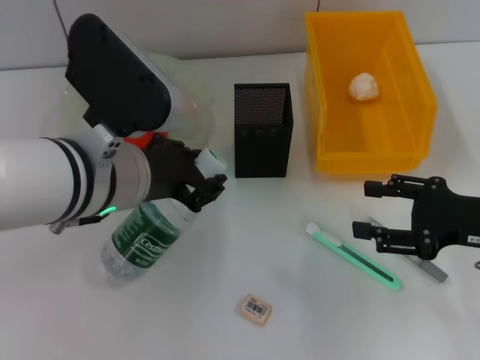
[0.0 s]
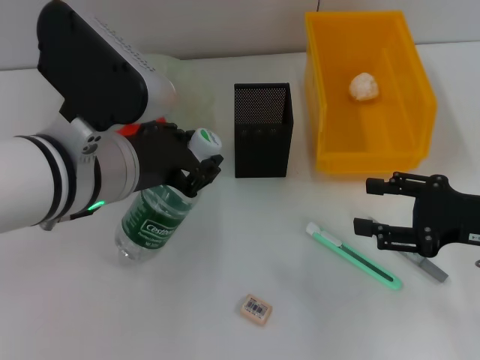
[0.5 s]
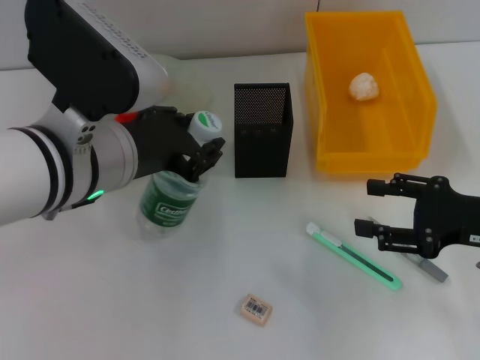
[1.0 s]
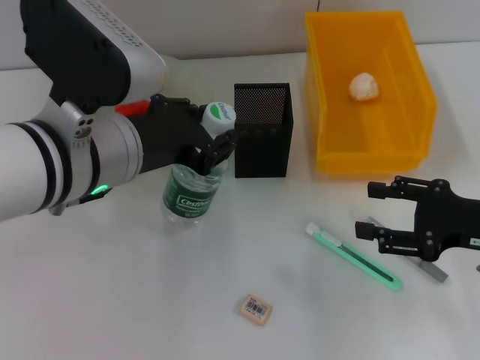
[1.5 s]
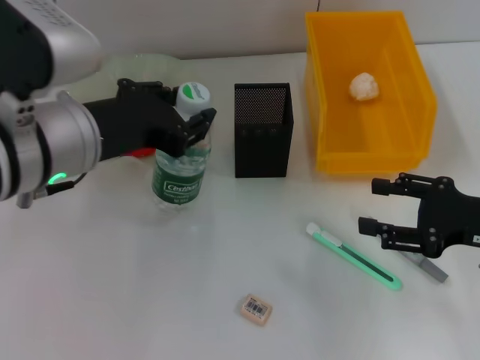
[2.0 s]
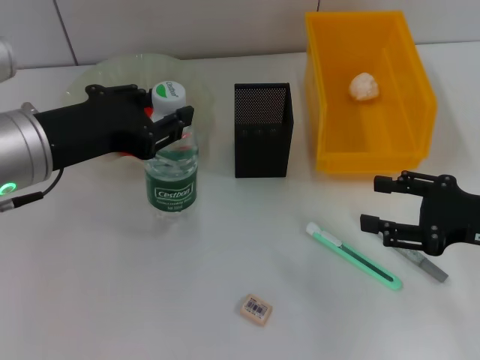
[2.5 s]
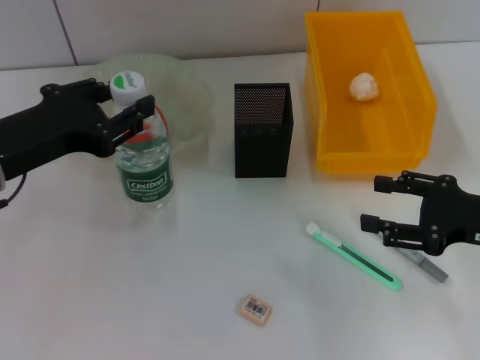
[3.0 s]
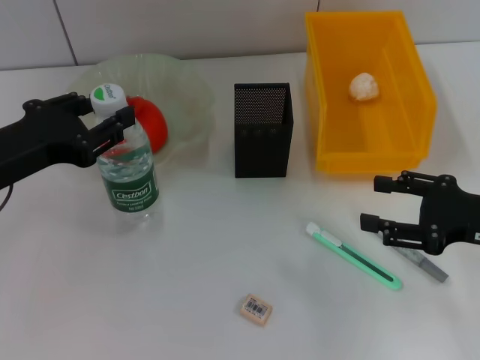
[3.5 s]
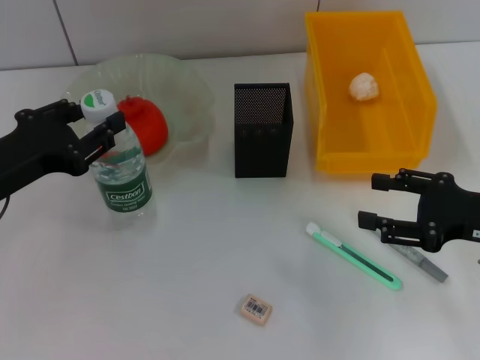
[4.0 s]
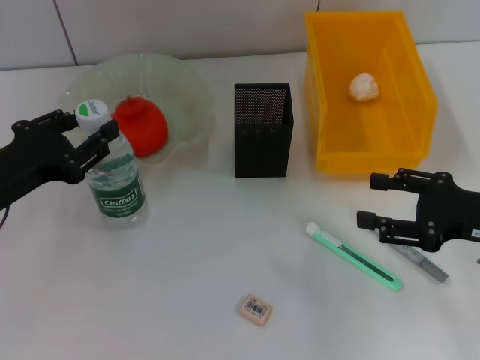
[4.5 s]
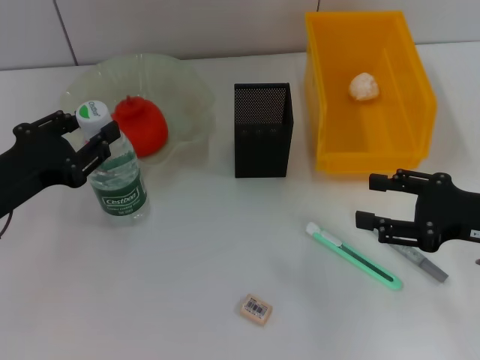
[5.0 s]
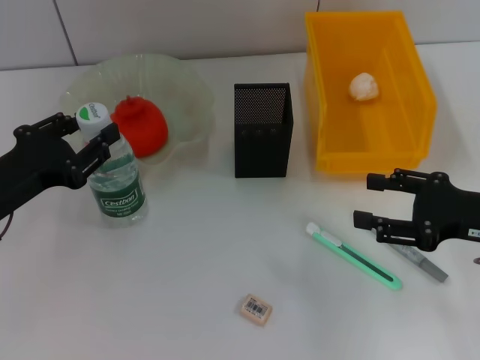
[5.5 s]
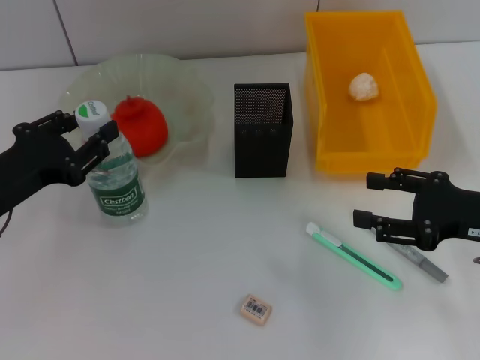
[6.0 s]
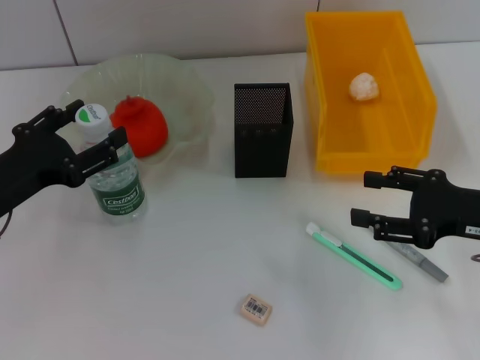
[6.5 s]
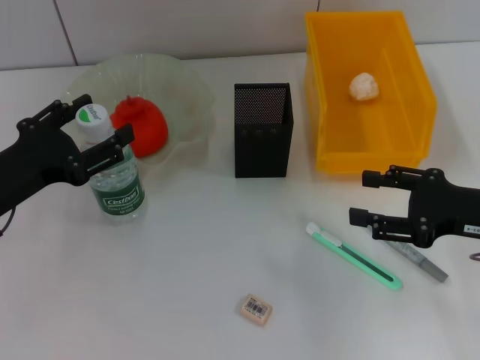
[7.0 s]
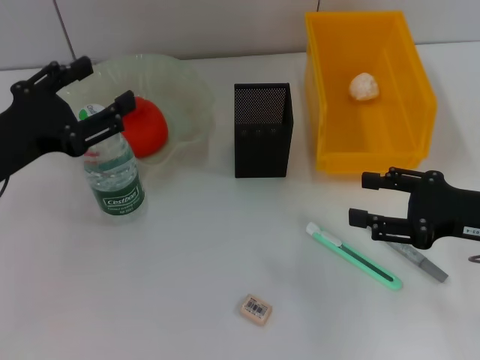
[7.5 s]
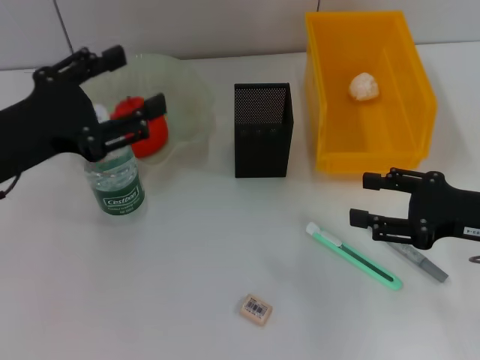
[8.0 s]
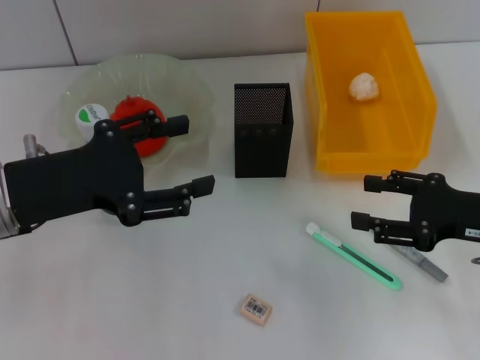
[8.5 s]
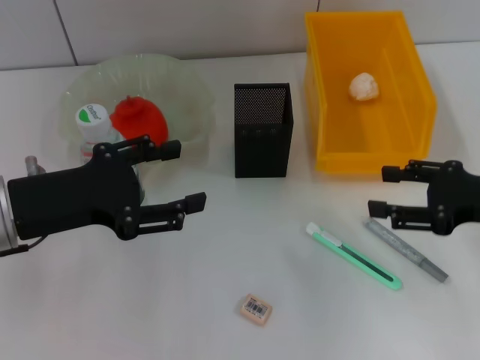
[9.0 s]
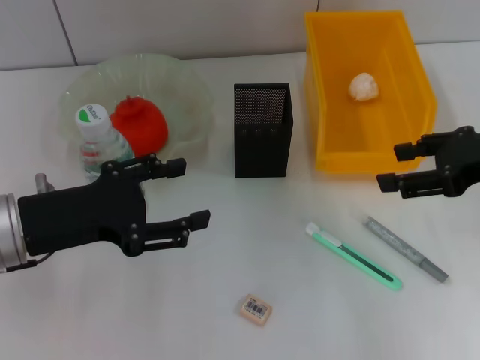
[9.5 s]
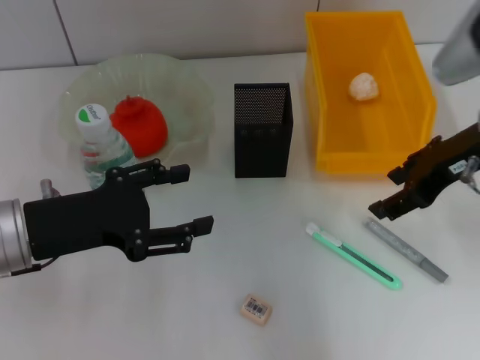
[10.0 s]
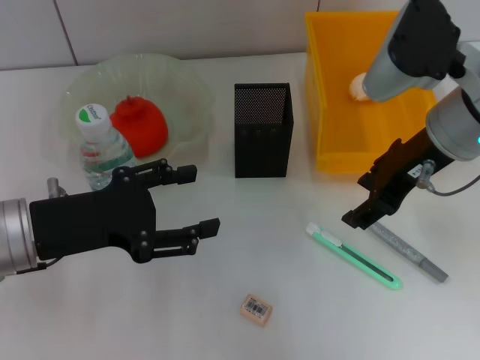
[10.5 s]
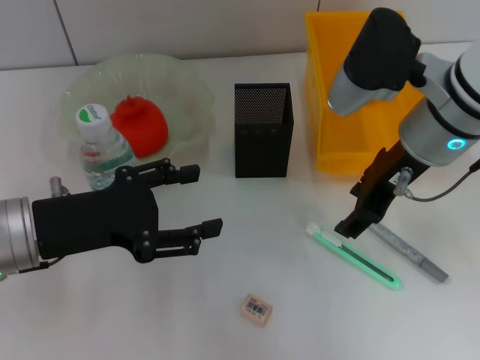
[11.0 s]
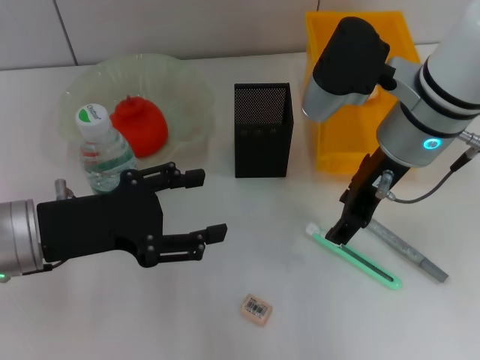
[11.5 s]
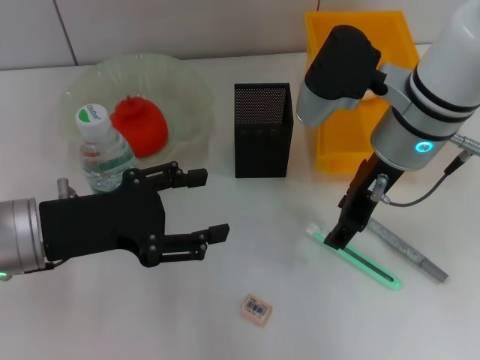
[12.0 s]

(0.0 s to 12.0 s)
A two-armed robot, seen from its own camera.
Step, 0.0 s - 7.0 s: Place the water bottle on the table with the left hand.
2.0 s - 4.0 s: The left gripper is displaced to the left and downward by roughly 10 cm.
4.0 s - 6.0 s: There are only small adjustments of the grippers.
6.0 s - 8.0 s: The left gripper goes roughly 5 cm upward, and opens up.
8.0 s - 10.0 s: The right gripper moves upward, forward and to the left, roughly 15 cm.
10.0 s - 12.0 s: The right gripper heads to the left, covering some 10 cm.

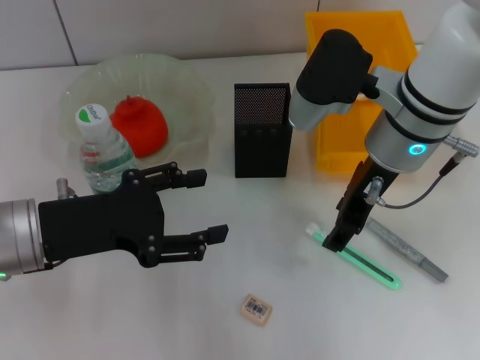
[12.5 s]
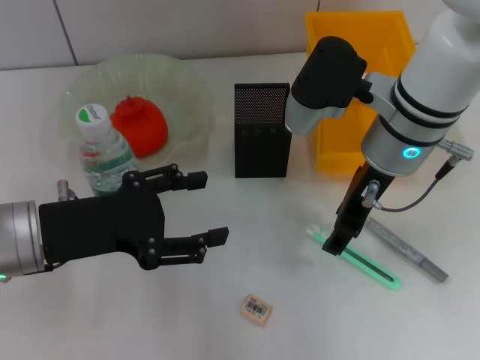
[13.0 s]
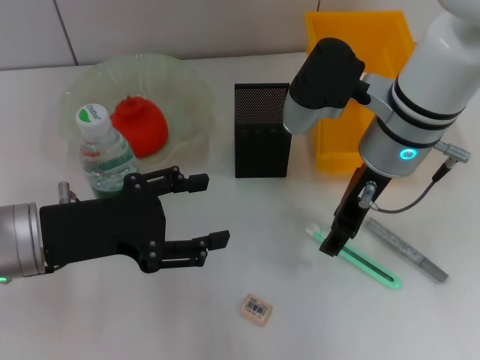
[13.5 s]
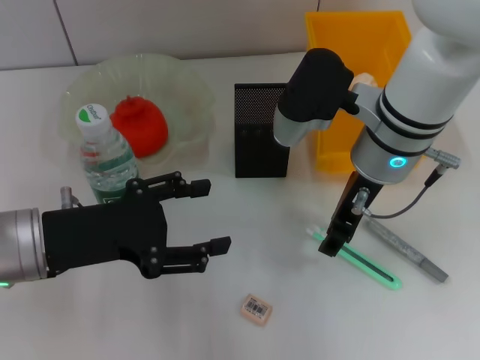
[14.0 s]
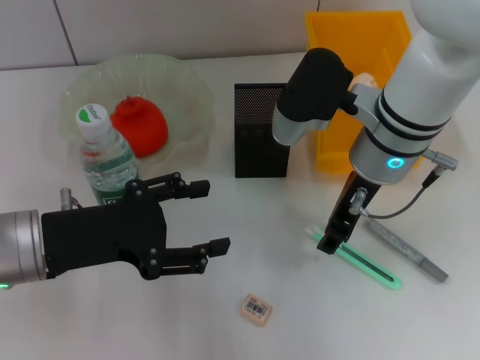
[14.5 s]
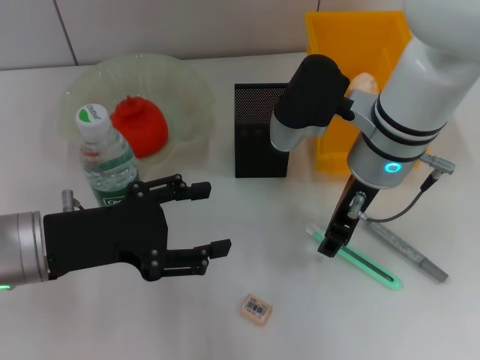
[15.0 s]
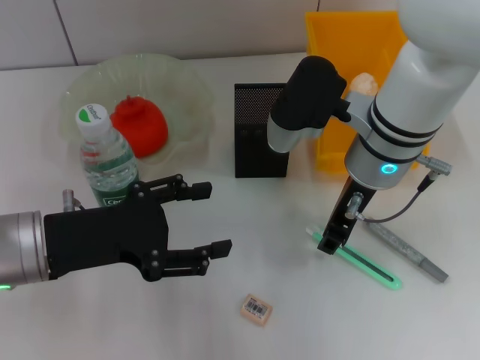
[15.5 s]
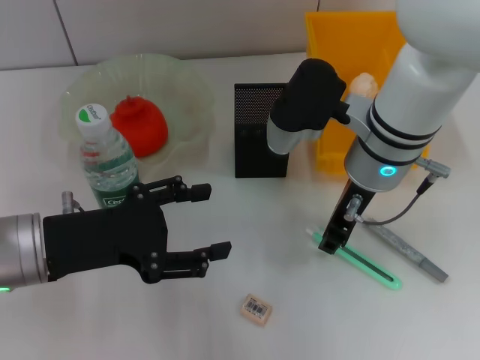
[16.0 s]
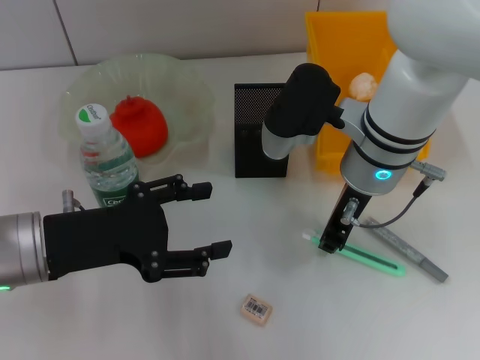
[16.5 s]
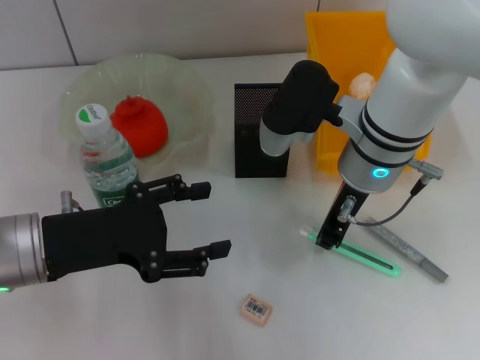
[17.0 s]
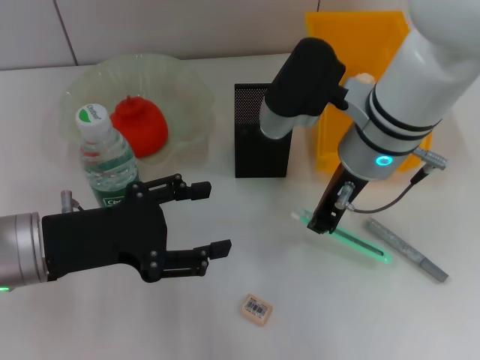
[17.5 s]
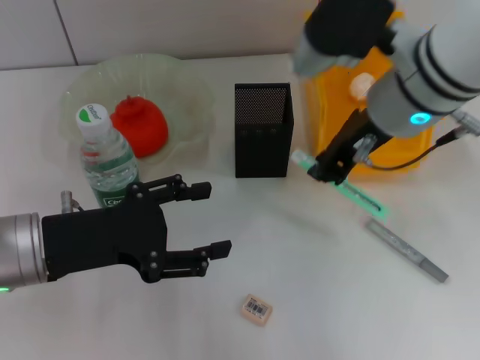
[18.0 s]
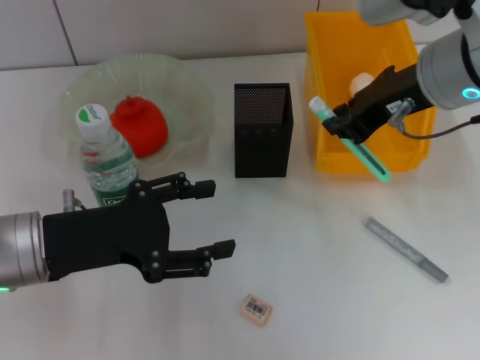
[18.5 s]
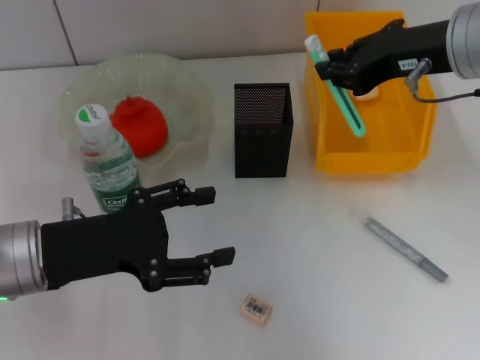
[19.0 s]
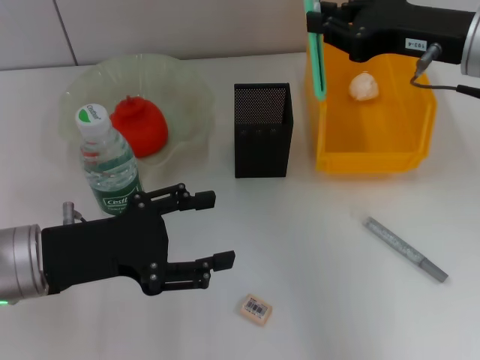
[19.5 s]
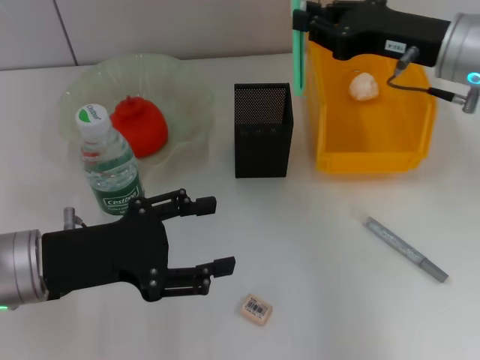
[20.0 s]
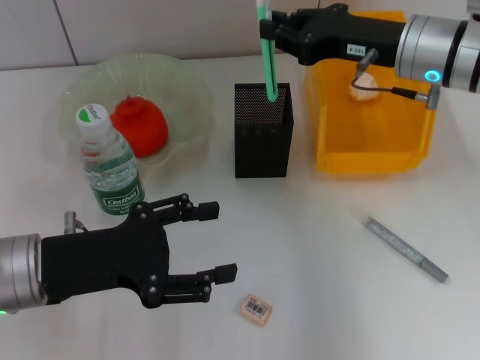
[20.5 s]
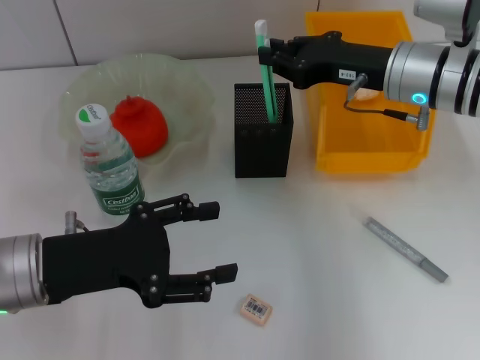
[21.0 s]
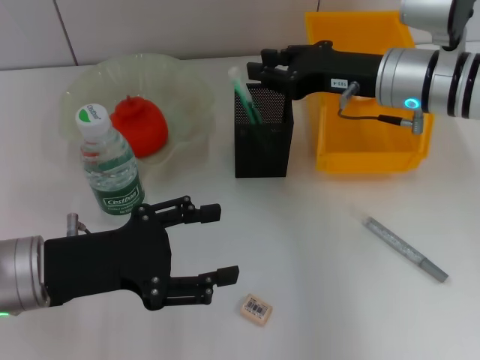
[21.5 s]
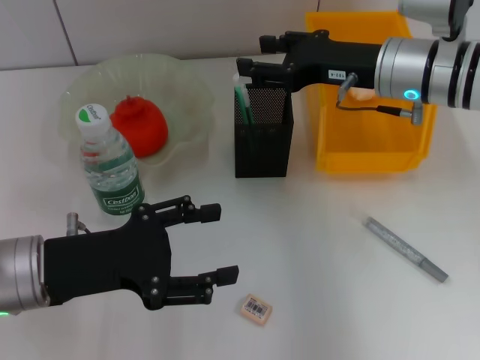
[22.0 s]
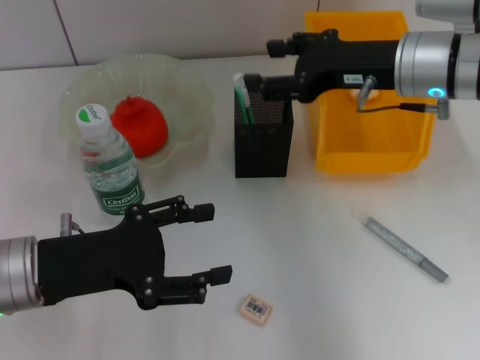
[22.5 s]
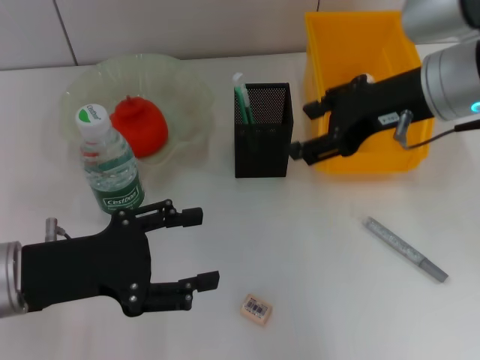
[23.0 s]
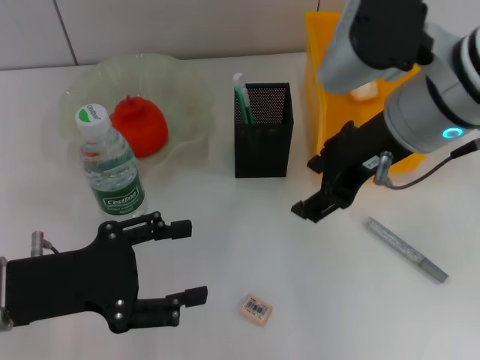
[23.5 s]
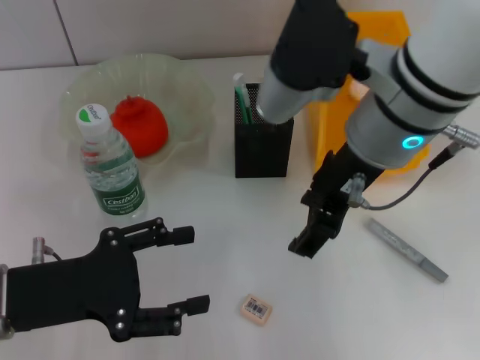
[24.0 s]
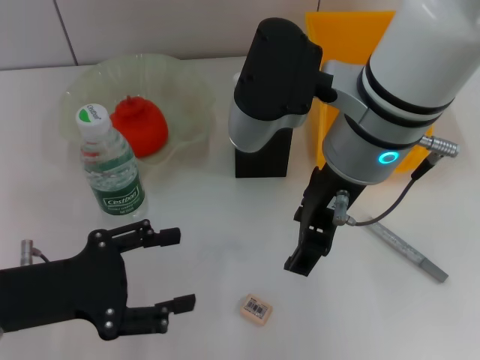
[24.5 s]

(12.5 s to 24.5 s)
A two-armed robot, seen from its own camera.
Step, 12.5 s - 17.0 s: Grab the blue utility knife with the right hand.
Step, 17.5 s - 21.5 s: Place the blue utility knife into the pen holder with the right hand.
12.5 s - 14.5 s: The grippers make only small movements.
14.5 s - 16.5 s: The right gripper closes.
16.5 s - 18.5 s: The right gripper travels upward and to the right by roughly 10 cm.
18.5 s - 20.5 s: The right gripper travels downward and forward by approximately 10 cm.
20.5 s - 22.5 s: The right gripper opens up.
22.5 s - 24.5 s: The right gripper goes approximately 15 cm to the left and backward.

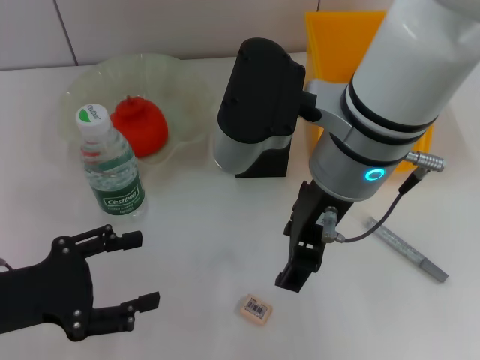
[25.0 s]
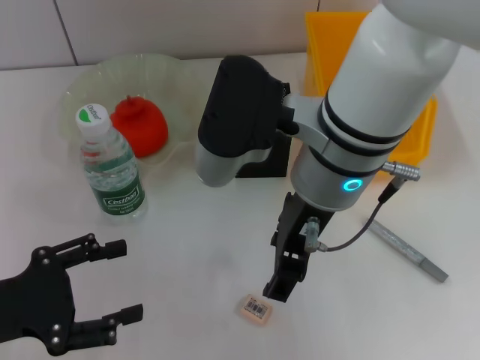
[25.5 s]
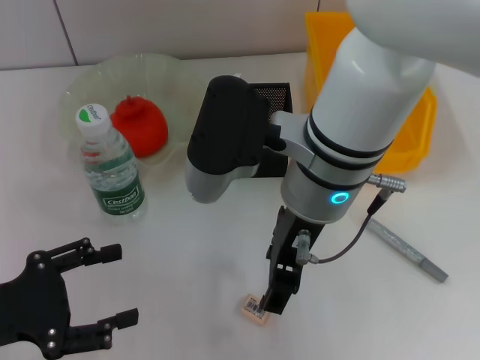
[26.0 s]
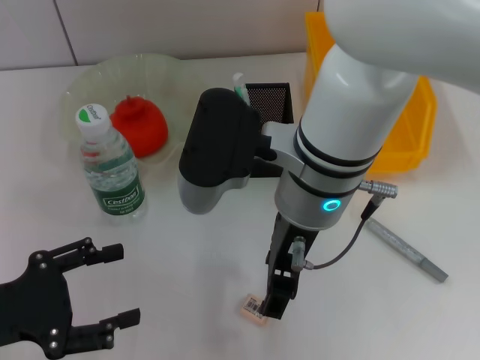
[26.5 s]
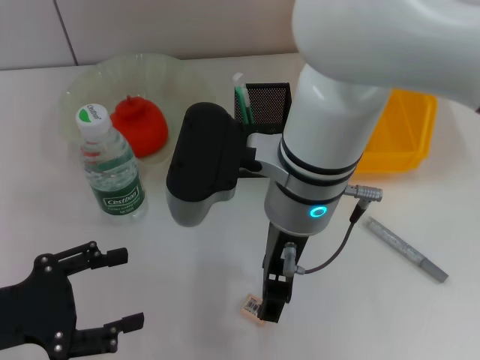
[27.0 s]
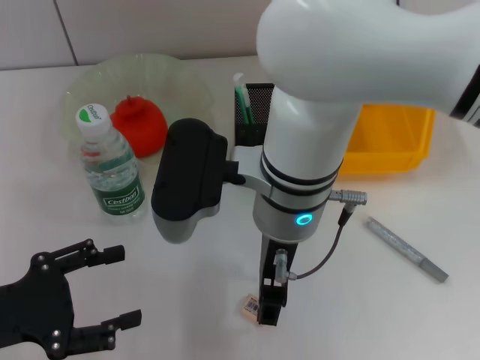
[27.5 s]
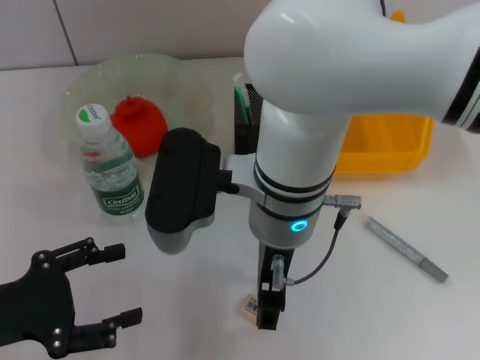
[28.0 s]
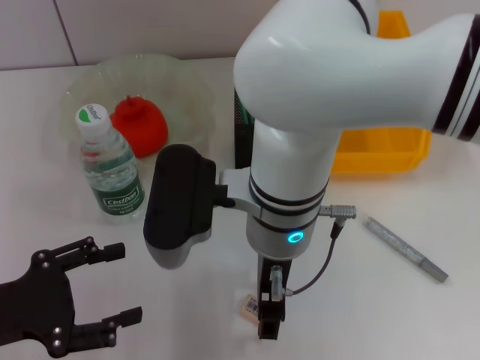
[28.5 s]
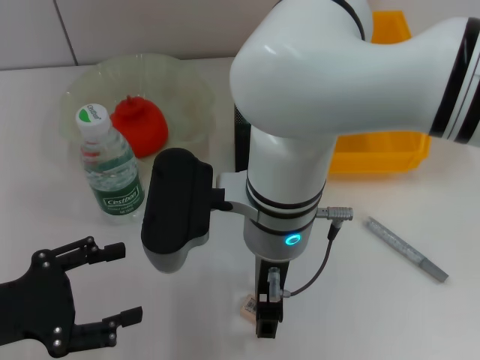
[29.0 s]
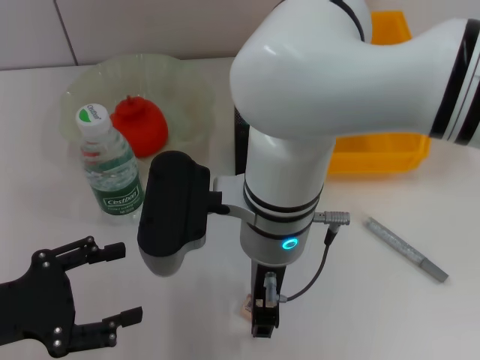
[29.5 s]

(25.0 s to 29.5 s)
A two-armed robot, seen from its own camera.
25.0 s - 27.0 s: The right gripper ends up some 5 cm from where it was.
